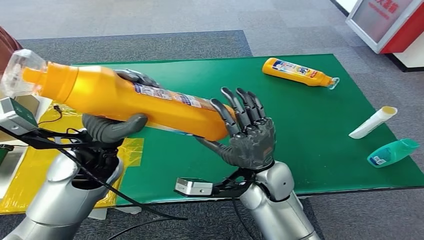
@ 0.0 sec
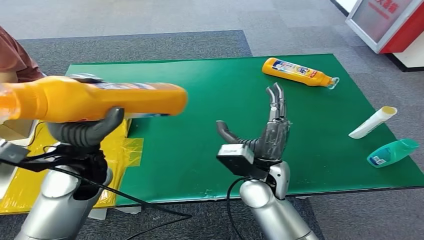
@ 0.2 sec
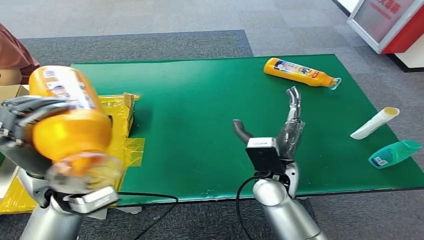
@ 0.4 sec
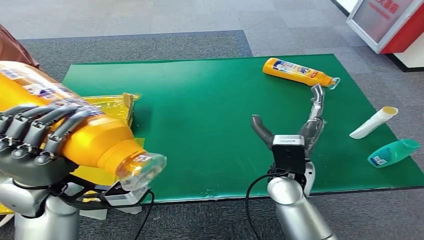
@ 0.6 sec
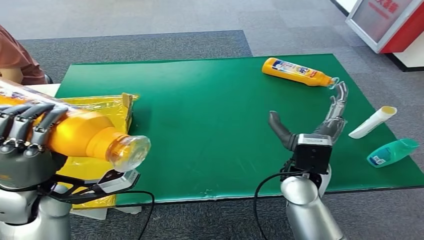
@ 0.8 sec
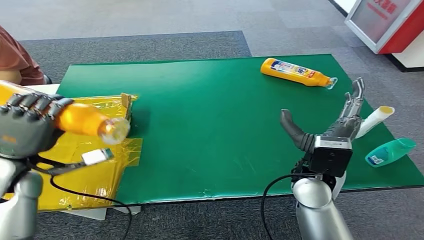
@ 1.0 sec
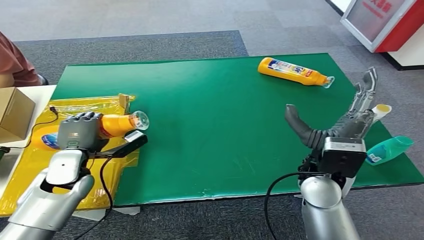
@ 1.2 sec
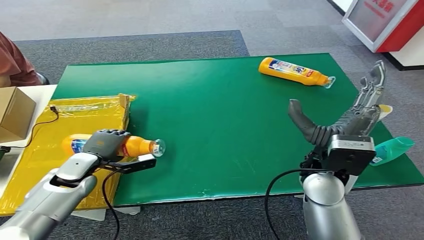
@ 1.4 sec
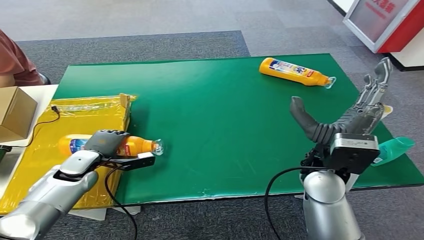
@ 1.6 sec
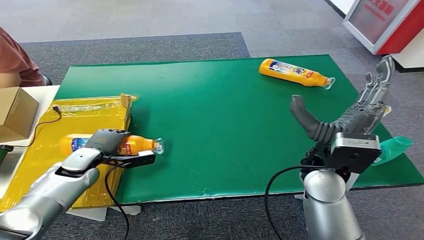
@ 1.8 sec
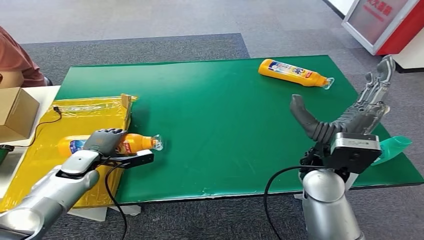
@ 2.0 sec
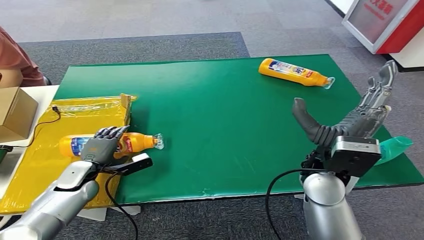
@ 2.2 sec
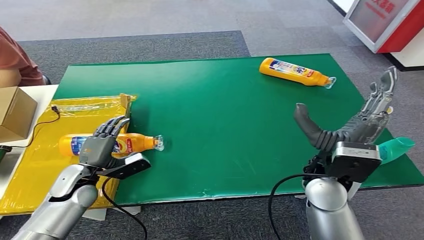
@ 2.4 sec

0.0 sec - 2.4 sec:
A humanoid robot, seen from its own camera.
Step, 0.0 sec - 2.4 sec: Turn the bottle to the front side.
